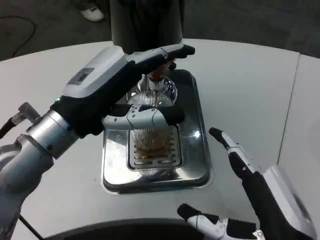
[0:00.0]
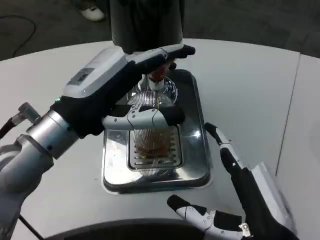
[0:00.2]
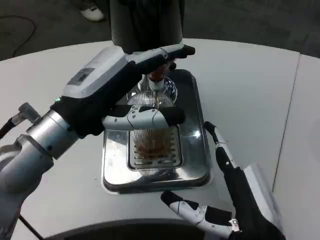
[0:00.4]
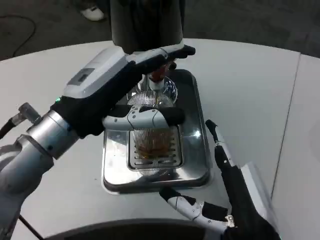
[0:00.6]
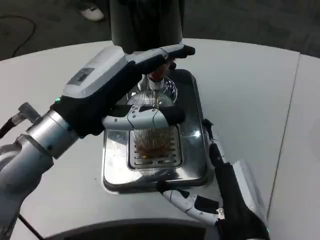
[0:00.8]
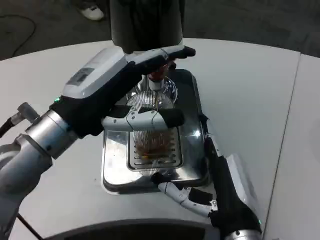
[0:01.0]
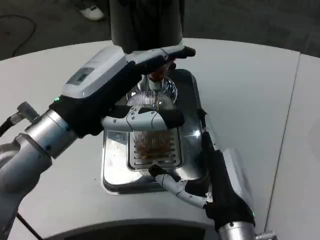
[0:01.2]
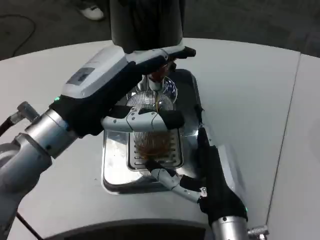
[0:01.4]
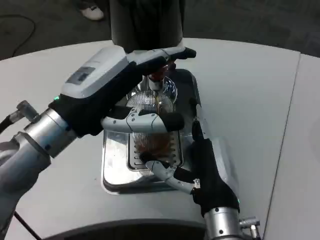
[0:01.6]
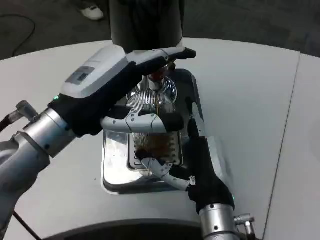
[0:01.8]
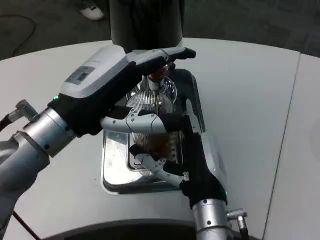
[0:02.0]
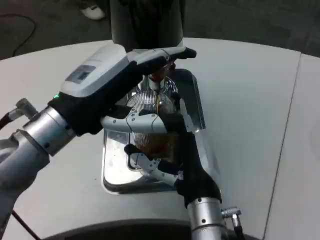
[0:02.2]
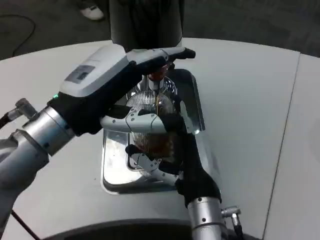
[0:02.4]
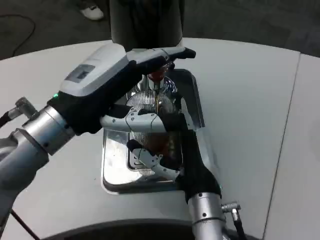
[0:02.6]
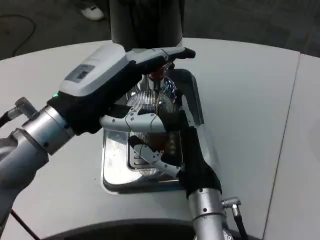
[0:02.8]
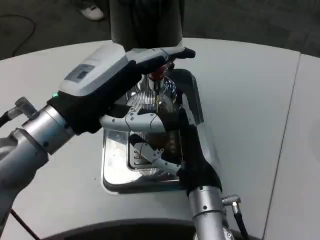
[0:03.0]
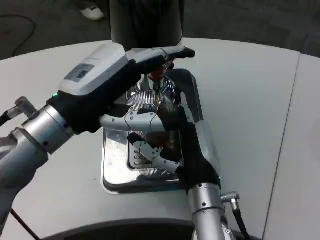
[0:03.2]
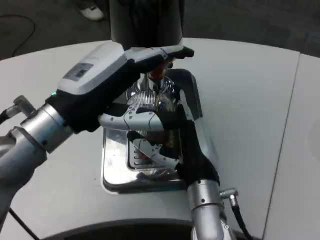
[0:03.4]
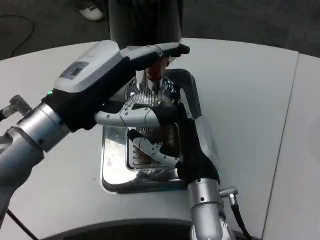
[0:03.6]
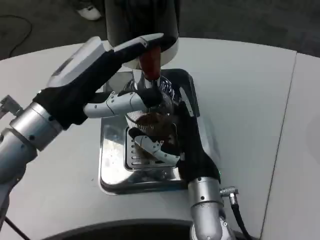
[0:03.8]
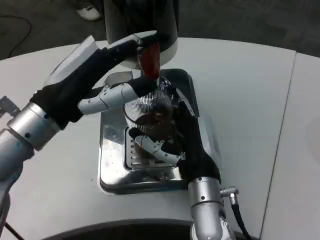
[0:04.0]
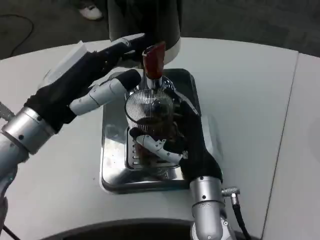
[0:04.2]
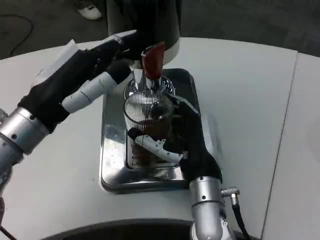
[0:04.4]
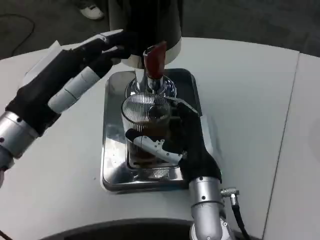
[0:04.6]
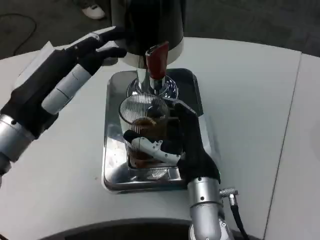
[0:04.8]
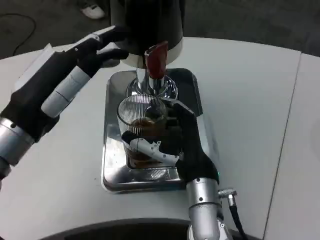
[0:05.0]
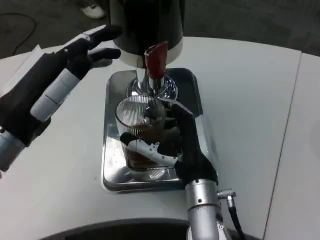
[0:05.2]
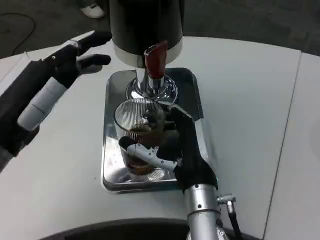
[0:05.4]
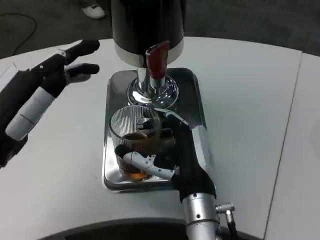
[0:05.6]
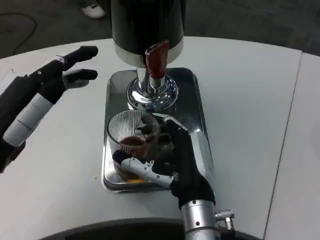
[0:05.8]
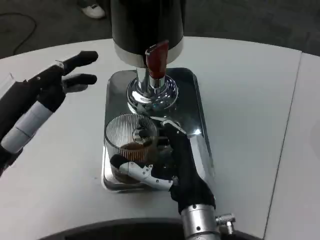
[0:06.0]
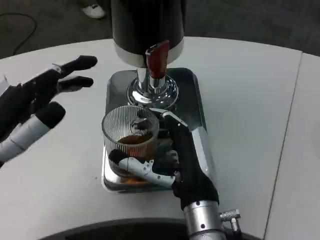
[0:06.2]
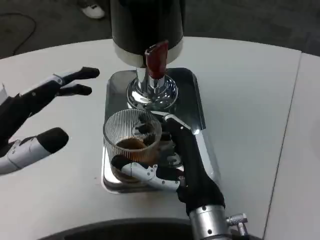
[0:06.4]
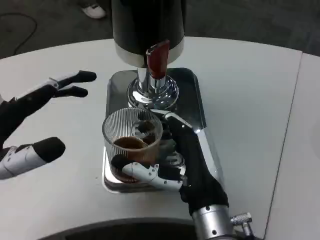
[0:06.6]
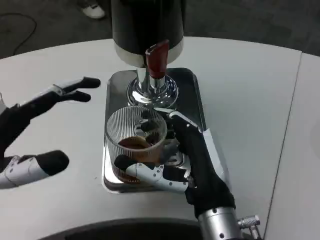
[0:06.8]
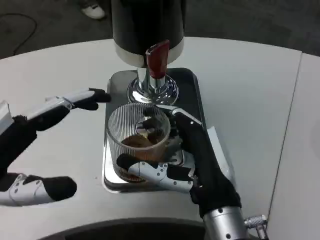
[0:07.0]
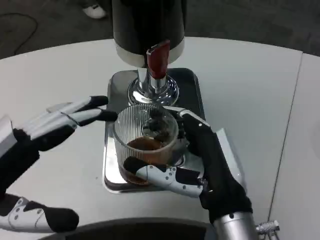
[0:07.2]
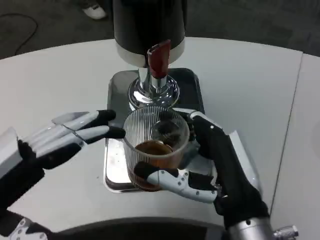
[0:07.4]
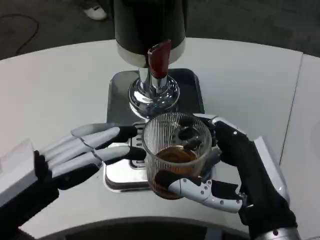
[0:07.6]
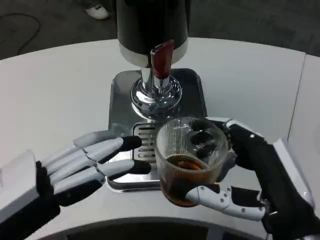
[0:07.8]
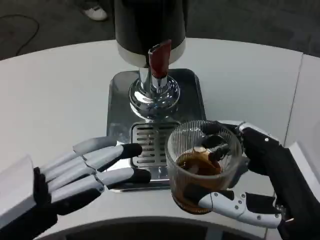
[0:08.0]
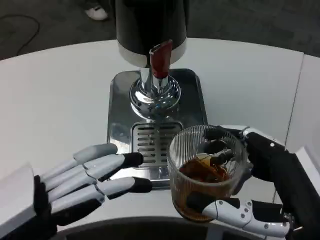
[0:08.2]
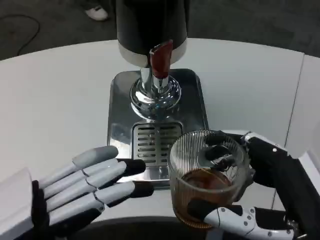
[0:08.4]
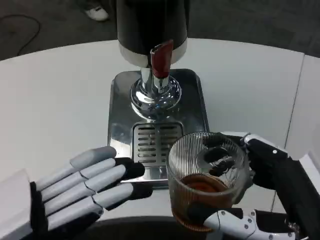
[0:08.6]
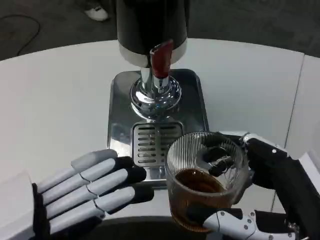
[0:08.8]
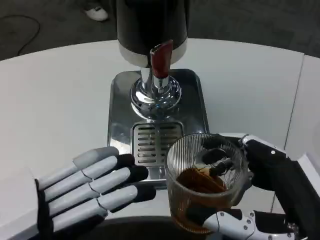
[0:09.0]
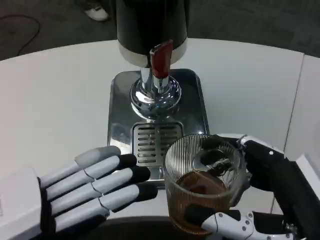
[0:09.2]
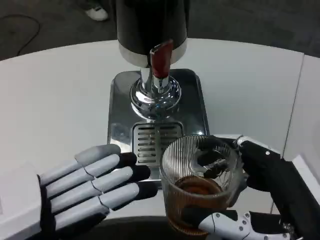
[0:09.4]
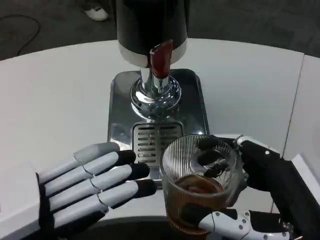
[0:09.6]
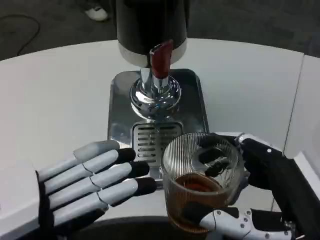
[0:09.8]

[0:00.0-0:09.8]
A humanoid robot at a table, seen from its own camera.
Task of the whole recording: Grasp the cup under the faucet to collect the drink, then remove the cup.
0:00.0 to 0:01.4: The right hand is displaced forward and to the left by roughly 10 cm.
0:01.4 to 0:02.8: There are only small adjustments of the hands.
0:04.2 to 0:05.6: The left hand goes roughly 5 cm backward.
0:05.6 to 0:07.0: The two hands go some 5 cm backward.
0:07.0 to 0:08.4: The right hand is displaced backward and to the right by some 15 cm; the left hand changes place by roughly 5 cm.
0:08.4 to 0:09.8: The hands stay close to where they were, moving slightly.

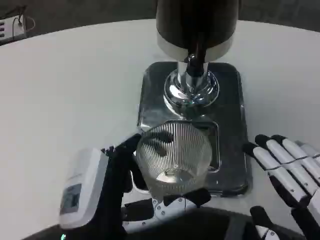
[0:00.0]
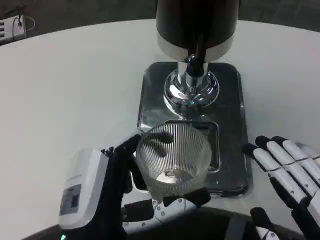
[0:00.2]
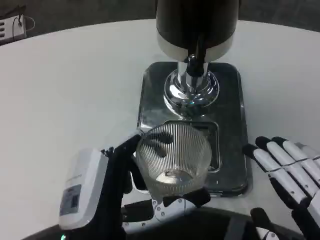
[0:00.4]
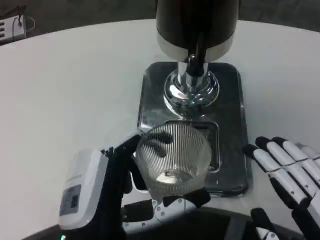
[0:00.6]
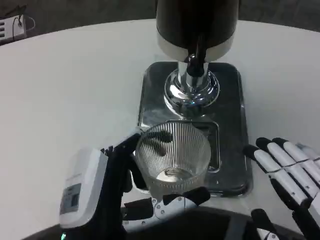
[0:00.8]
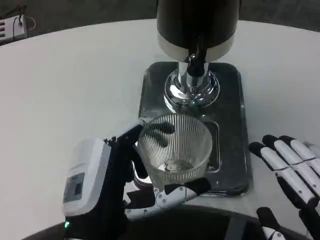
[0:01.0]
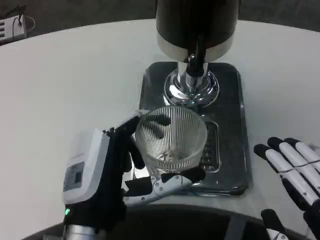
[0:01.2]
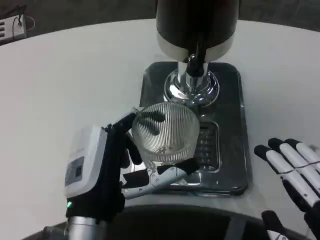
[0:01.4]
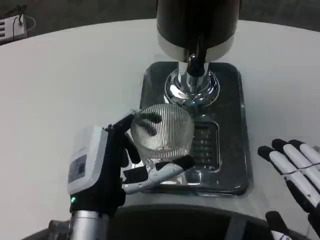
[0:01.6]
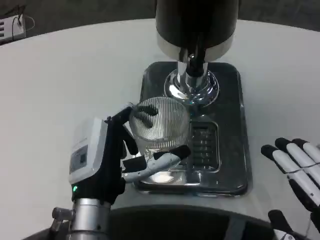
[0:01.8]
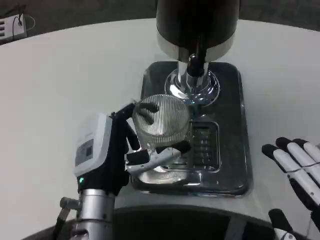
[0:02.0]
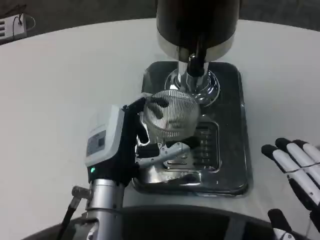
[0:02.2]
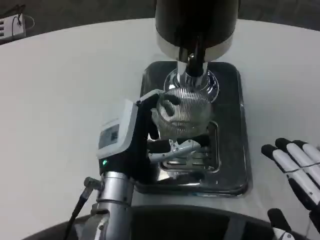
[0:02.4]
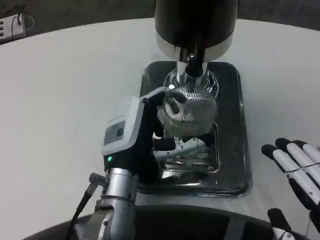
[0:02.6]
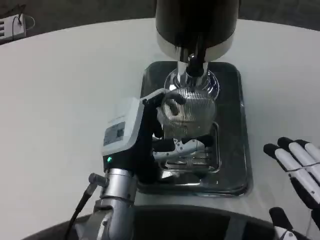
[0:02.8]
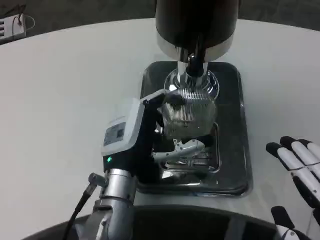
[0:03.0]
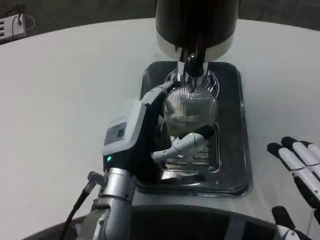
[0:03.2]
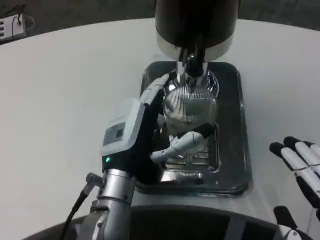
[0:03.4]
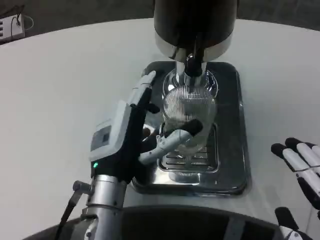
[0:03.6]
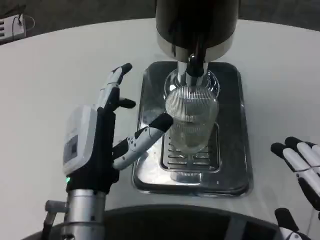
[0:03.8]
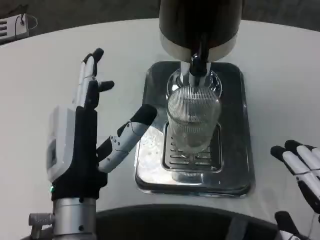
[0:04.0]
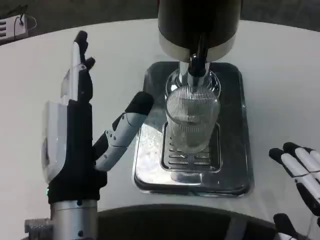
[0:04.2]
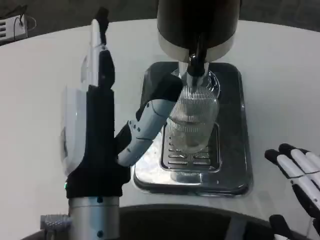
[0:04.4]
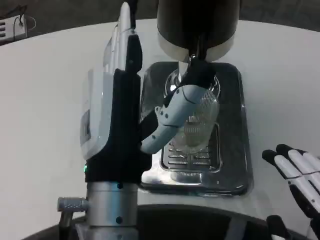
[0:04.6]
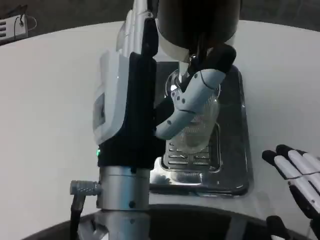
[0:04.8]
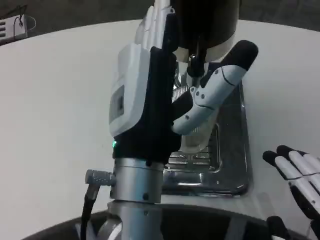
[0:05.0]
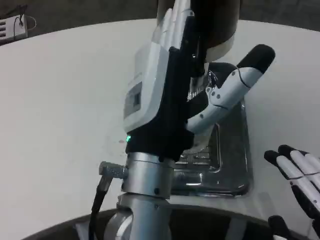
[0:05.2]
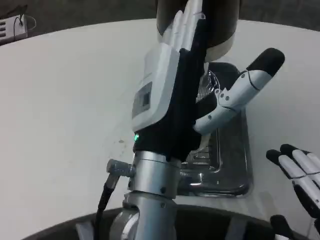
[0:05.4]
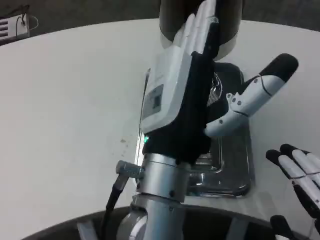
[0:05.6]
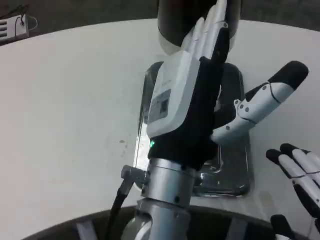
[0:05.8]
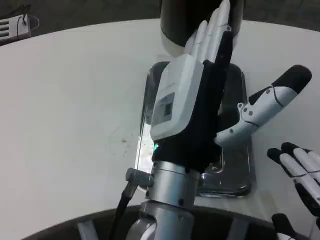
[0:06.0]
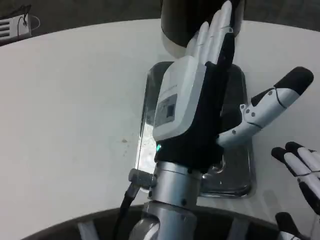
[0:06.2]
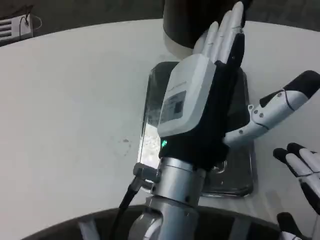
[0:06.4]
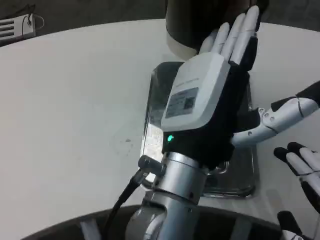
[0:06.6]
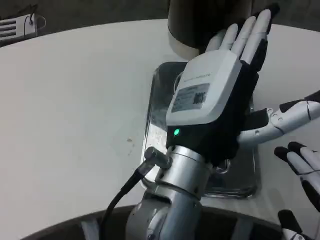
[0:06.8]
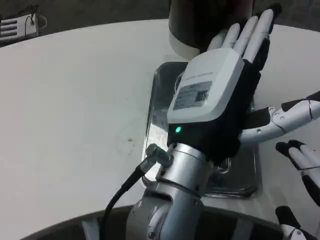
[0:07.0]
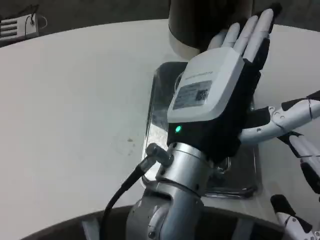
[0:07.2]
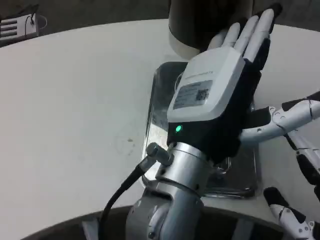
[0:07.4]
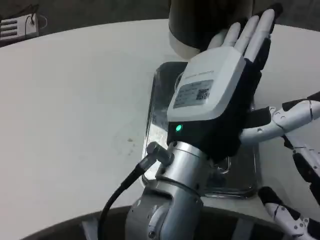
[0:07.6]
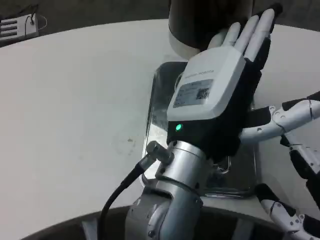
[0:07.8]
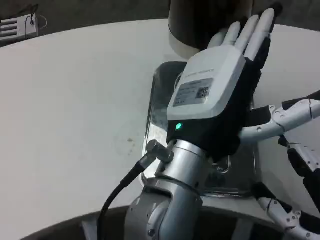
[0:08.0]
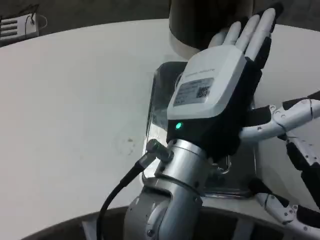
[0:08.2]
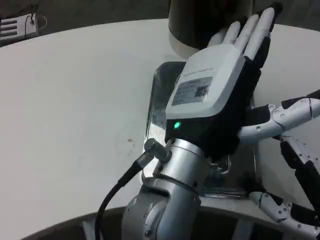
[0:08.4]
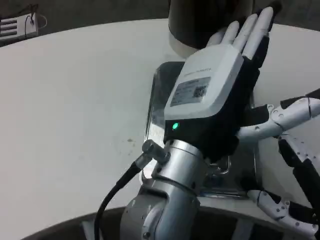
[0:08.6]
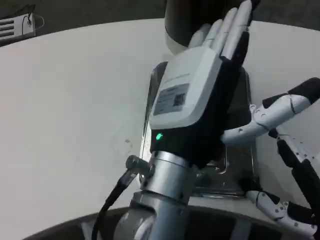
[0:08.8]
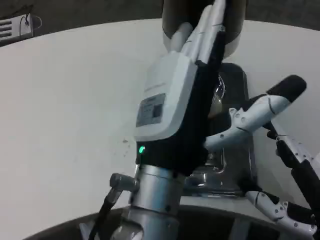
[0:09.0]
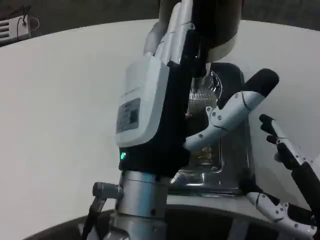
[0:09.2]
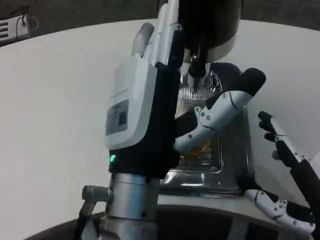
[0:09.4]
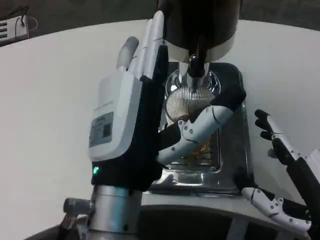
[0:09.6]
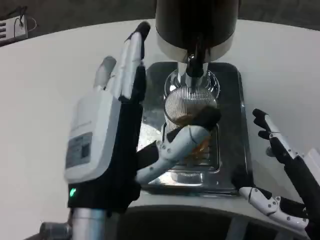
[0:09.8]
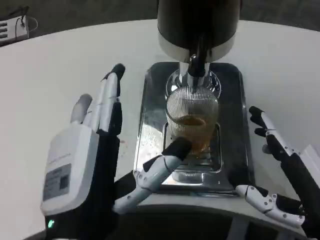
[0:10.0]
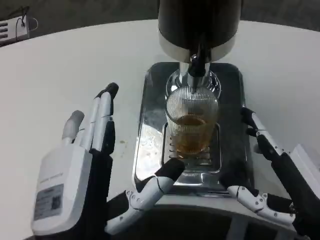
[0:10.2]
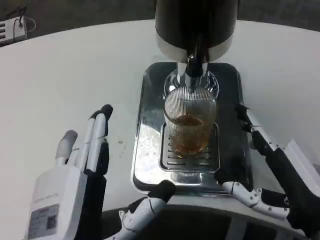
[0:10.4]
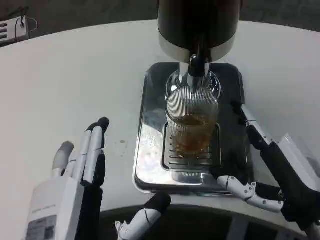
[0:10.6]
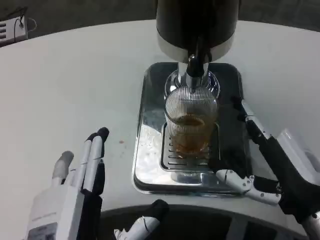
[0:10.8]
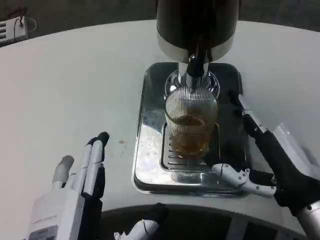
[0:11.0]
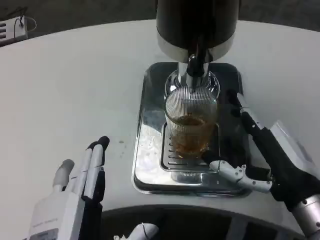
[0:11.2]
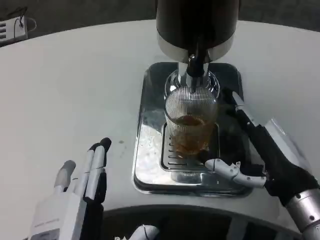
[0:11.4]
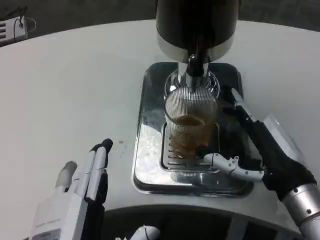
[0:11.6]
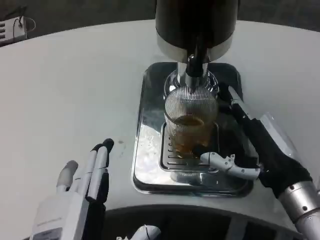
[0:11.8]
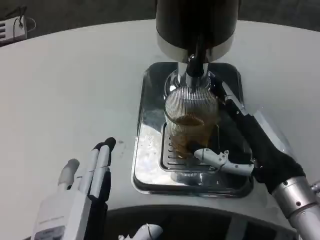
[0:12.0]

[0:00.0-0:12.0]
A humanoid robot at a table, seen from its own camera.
Task of the whole recording: Grasp the cup under the faucet to collect the drink, then remove the cup.
0:00.0 to 0:01.6: The left hand heads forward, covering about 5 cm.
0:01.6 to 0:03.0: The left hand travels forward by about 5 cm.
0:03.0 to 0:04.4: The left hand moves backward and upward, roughly 15 cm.
0:04.4 to 0:06.0: The left hand is displaced to the right by about 5 cm.
0:09.0 to 0:10.4: The left hand goes approximately 15 cm to the left, downward and backward.
0:10.4 to 0:12.0: The right hand goes about 5 cm forward.
